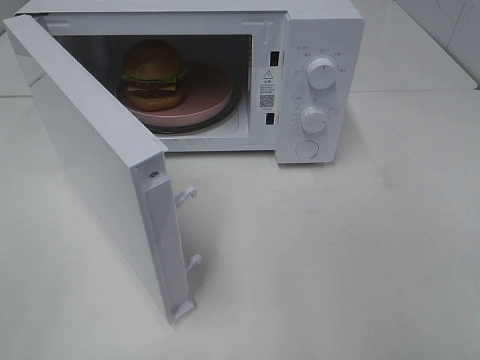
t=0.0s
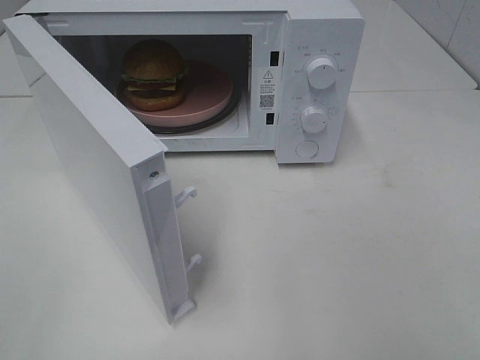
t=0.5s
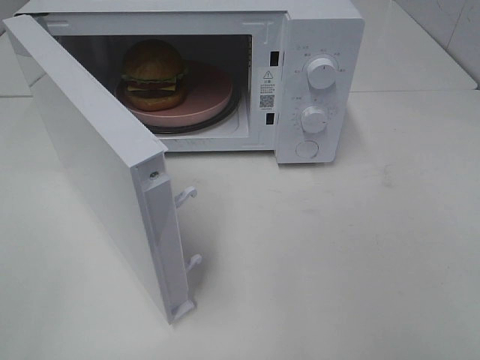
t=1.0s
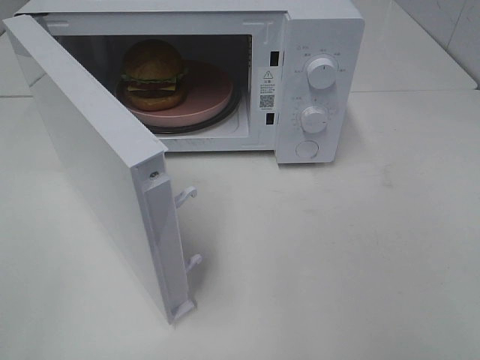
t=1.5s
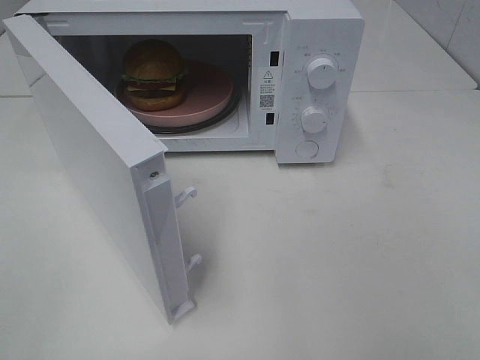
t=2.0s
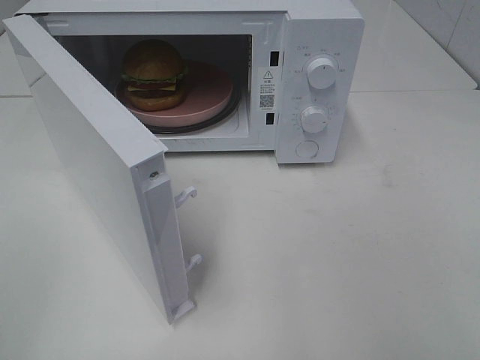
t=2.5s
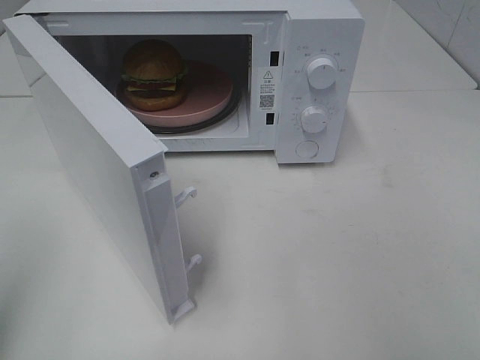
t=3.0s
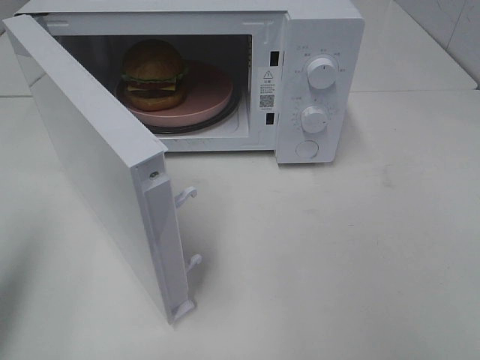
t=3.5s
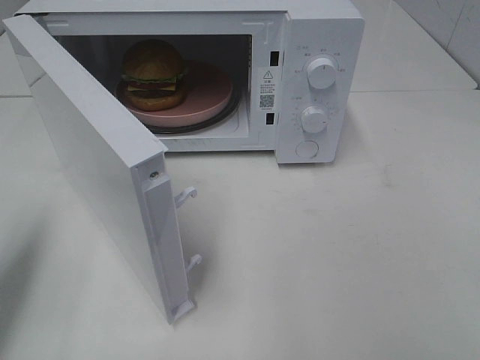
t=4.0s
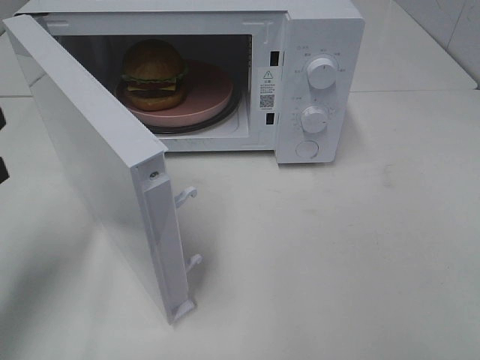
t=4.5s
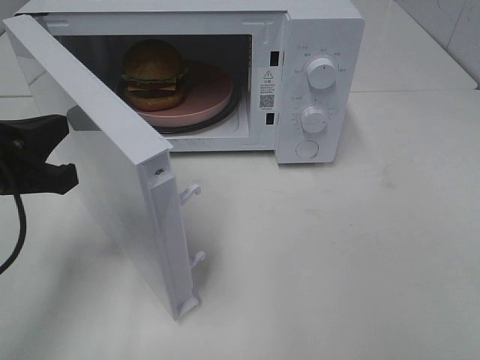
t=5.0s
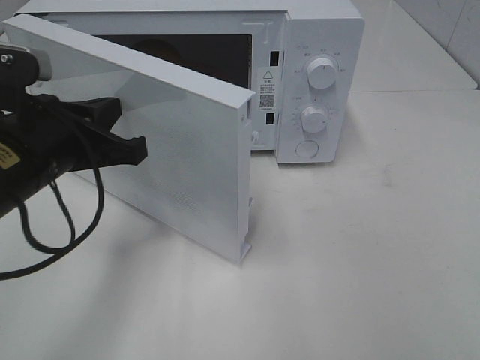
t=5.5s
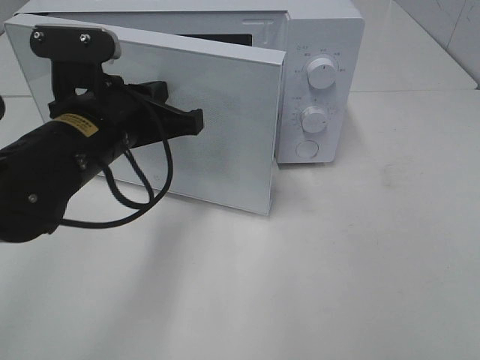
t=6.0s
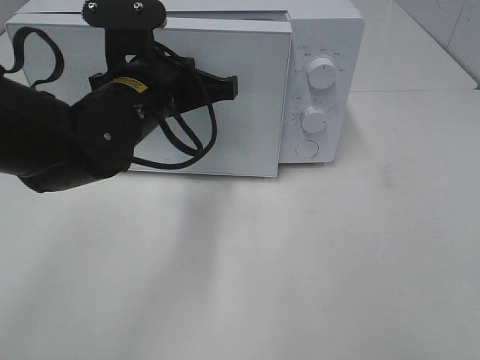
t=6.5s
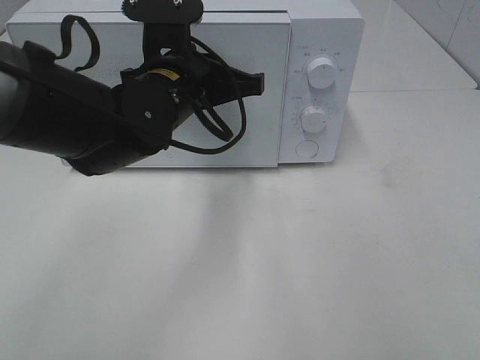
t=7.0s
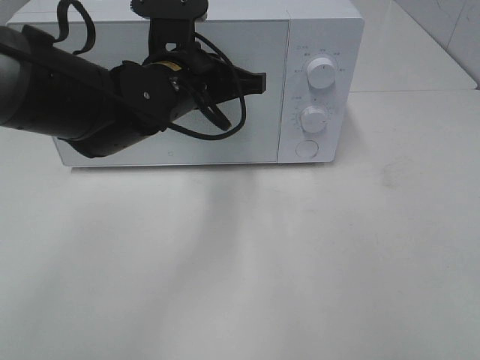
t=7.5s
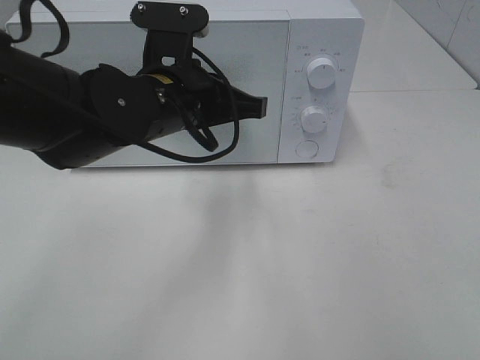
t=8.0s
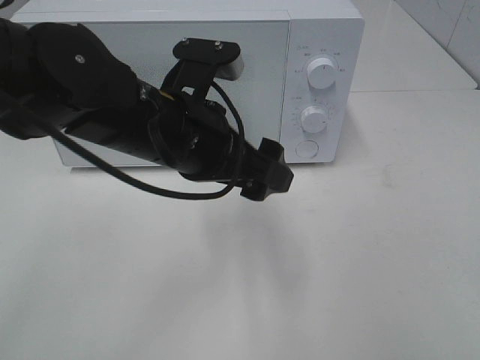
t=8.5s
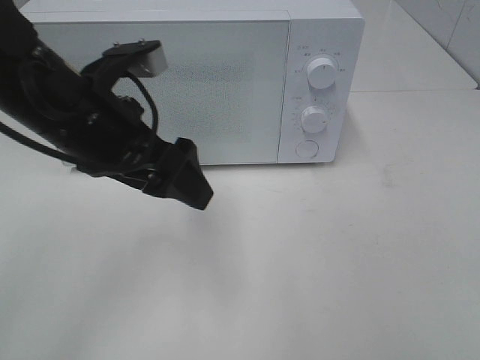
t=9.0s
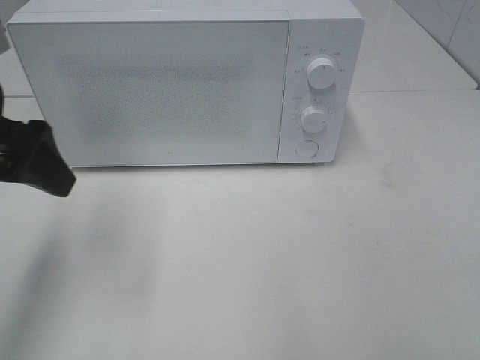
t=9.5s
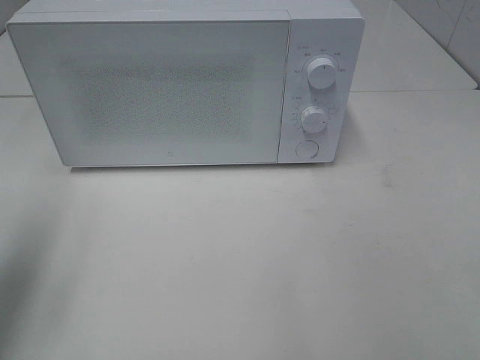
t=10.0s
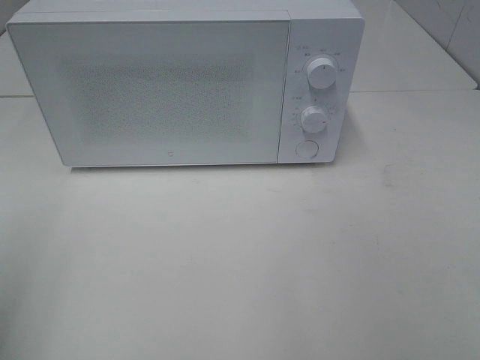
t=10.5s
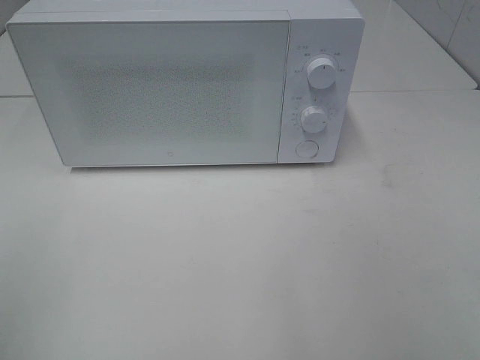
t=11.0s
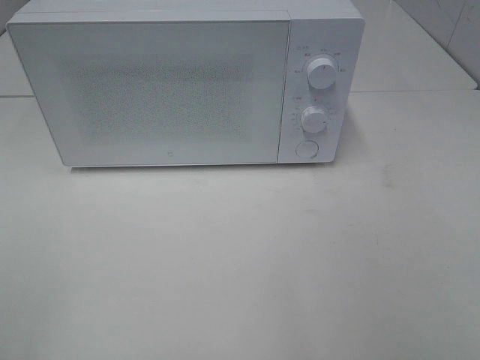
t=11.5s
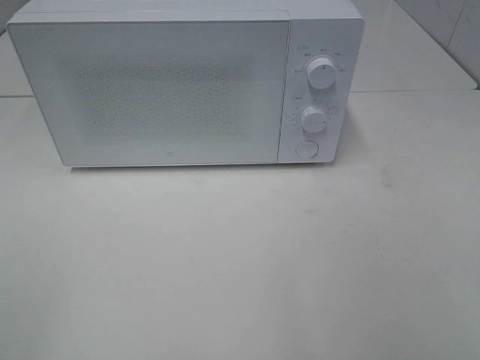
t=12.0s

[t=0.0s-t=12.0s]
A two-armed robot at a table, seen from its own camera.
Task of the whole recording: Heat the burger.
Step, t=0.0s to t=8.0s: Left hand: close the microwave door.
t=0.0s to t=2.0s: Both grippers stay about where they are.
t=2.0s to t=4.0s: The left gripper travels forward by roughly 15 cm, and closes.
t=4.0s to t=6.0s: The left gripper goes approximately 20 cm to the right and forward.
t=6.0s to t=8.0s: The left gripper goes approximately 5 cm to the right.
t=8.0s to t=10.0s: The left gripper shifts approximately 30 cm to the left and backward, and opens.
t=10.0s to t=12.0s: The left gripper is displaced backward by roughly 20 cm.

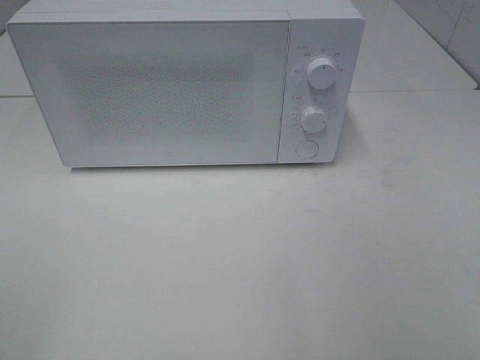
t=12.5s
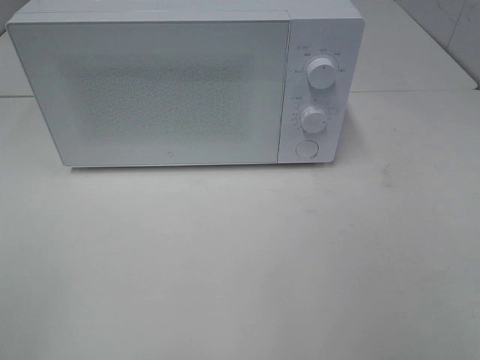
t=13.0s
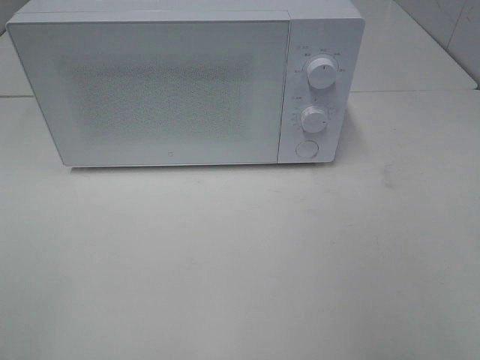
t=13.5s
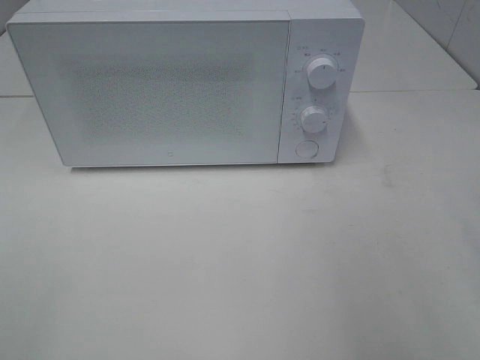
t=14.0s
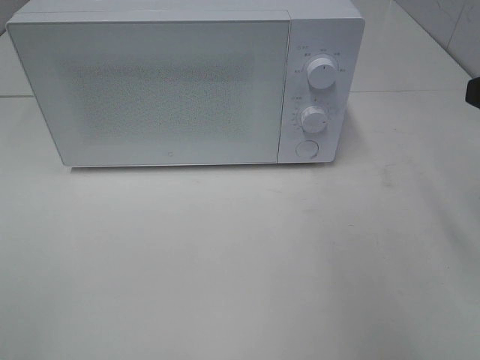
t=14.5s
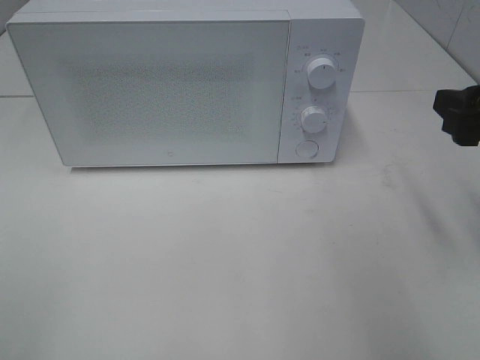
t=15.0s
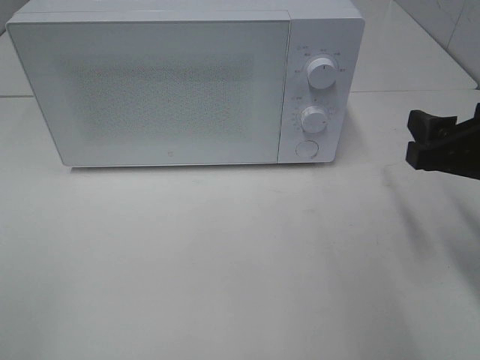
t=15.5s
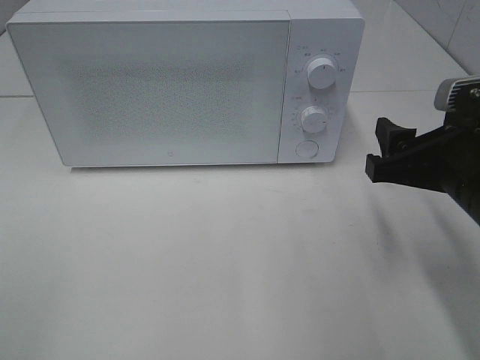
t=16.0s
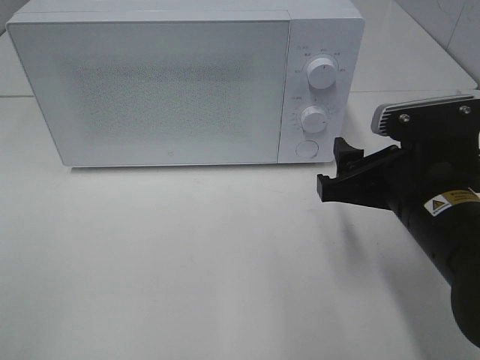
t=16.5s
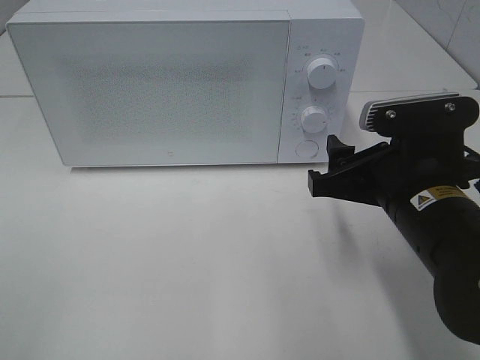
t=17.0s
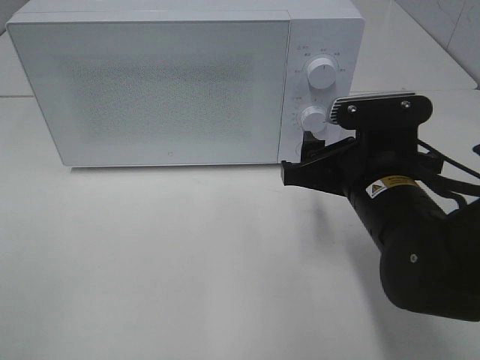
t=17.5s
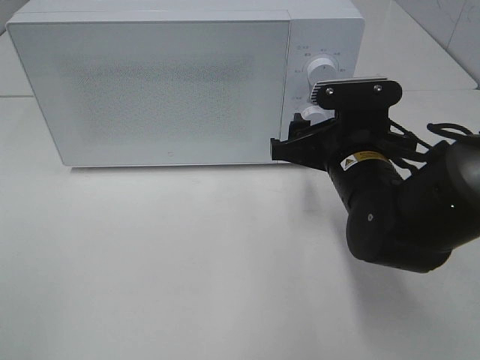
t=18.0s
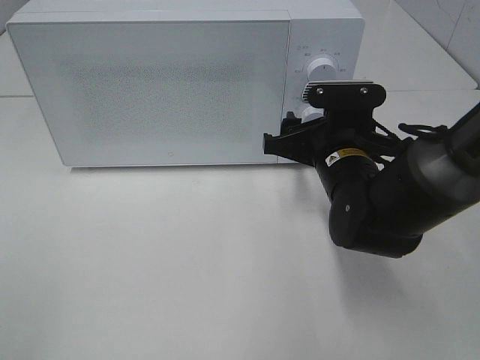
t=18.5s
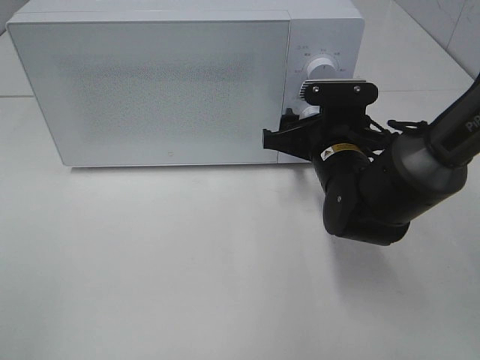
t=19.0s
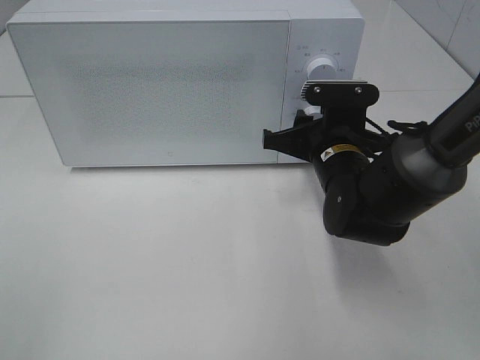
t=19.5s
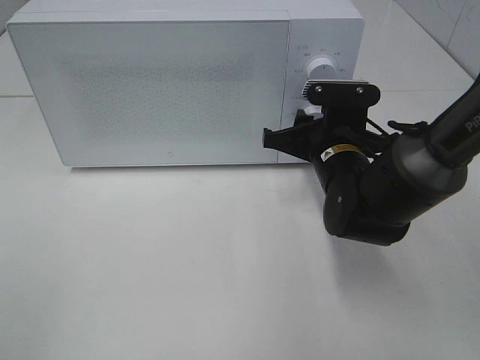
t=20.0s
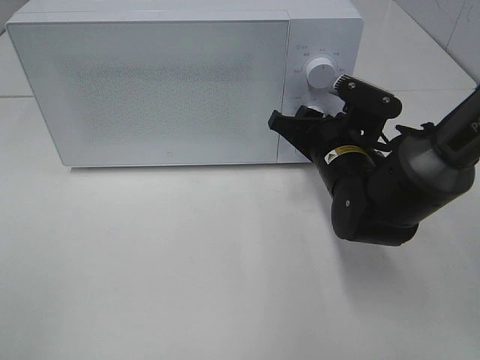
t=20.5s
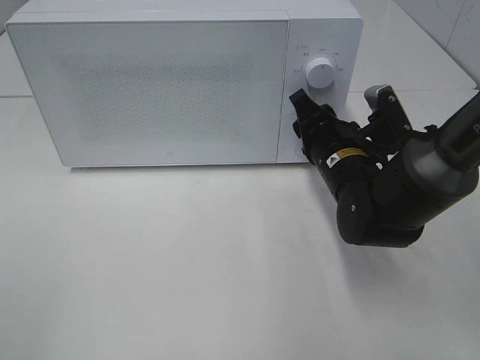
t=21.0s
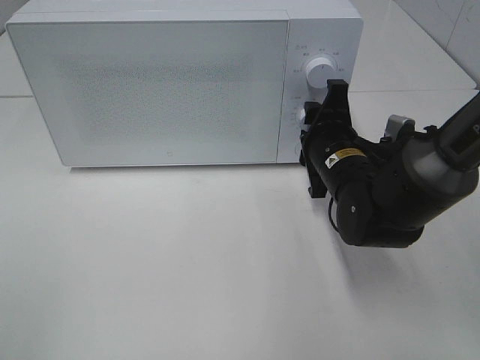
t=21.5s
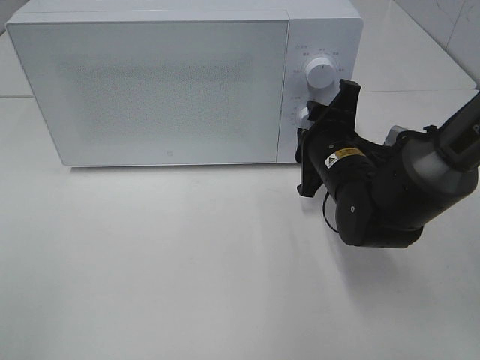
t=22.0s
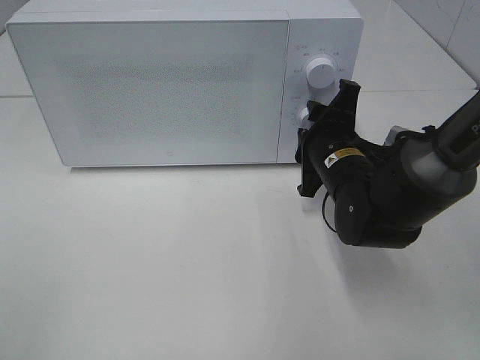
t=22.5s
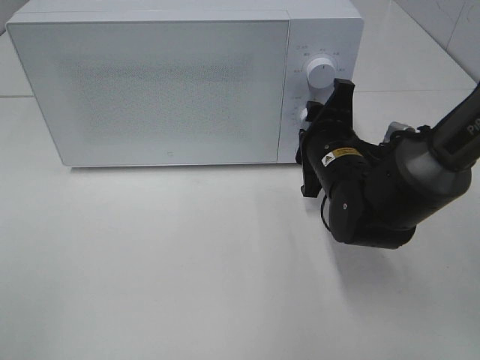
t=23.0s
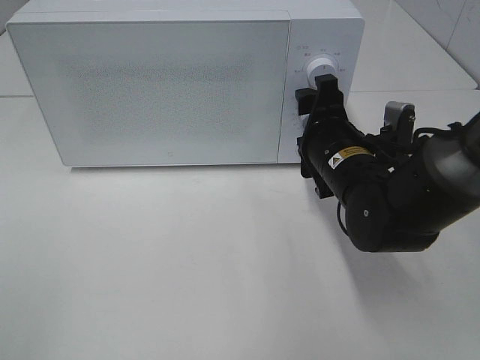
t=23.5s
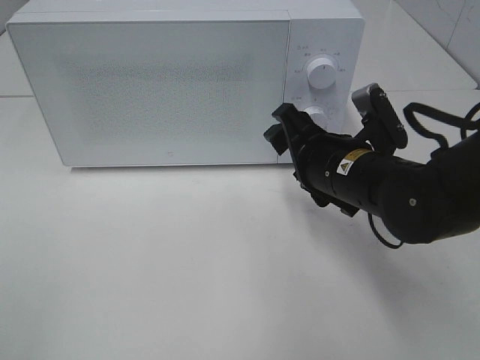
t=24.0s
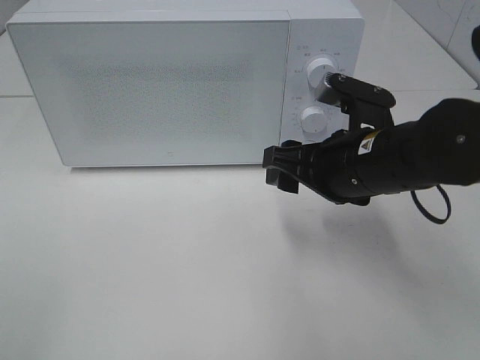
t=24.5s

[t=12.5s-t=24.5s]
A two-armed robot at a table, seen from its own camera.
Task of the whole recording: Heat the burger.
Step, t=12.5s to t=23.0s: Right hand: twist timer button.
t=14.5s to t=16.5s: The right gripper moves downward and to the left, approximately 15 cm.
t=16.5s to t=18.5s: The right gripper heads forward, covering approximately 10 cm.
t=22.5s to t=24.5s: The right gripper is displaced backward and upward by some 10 cm.

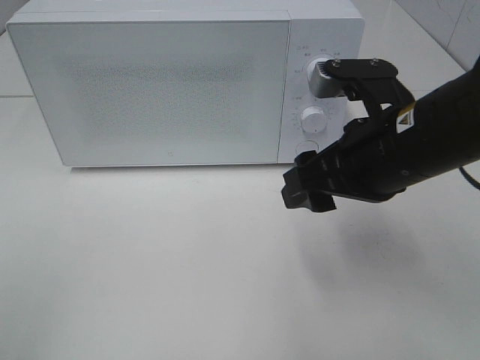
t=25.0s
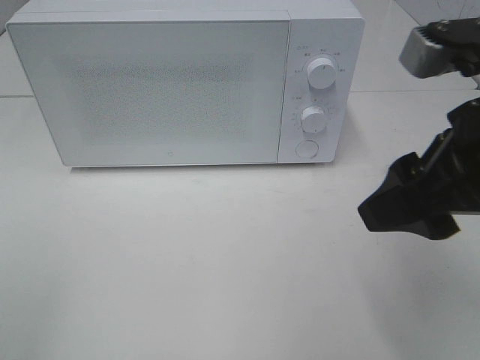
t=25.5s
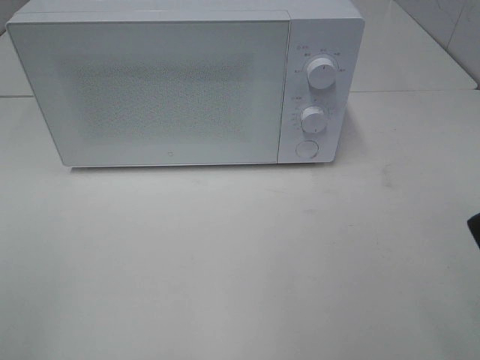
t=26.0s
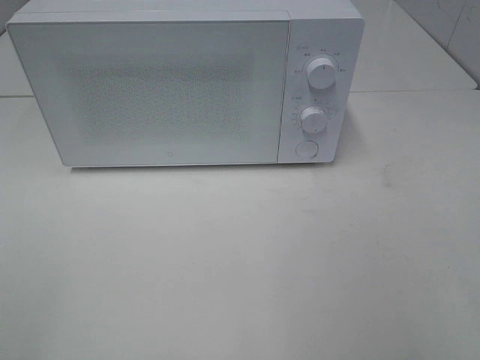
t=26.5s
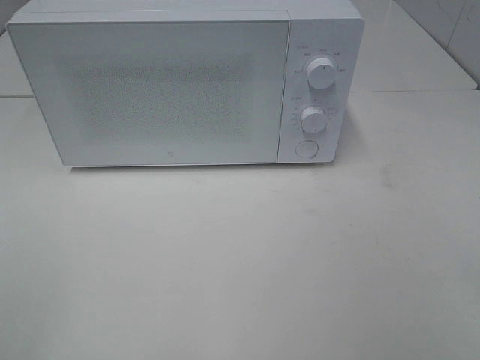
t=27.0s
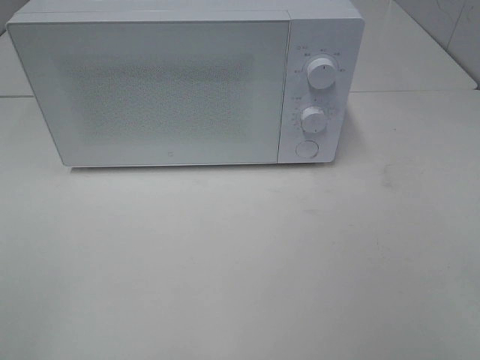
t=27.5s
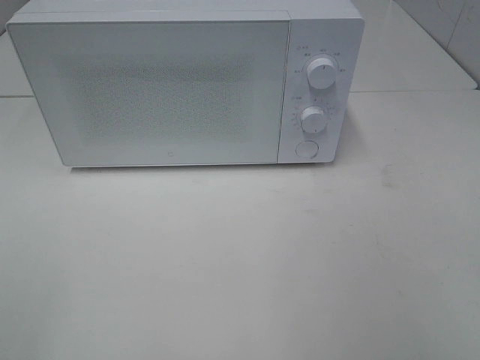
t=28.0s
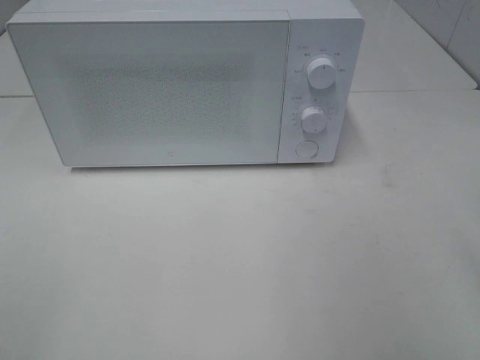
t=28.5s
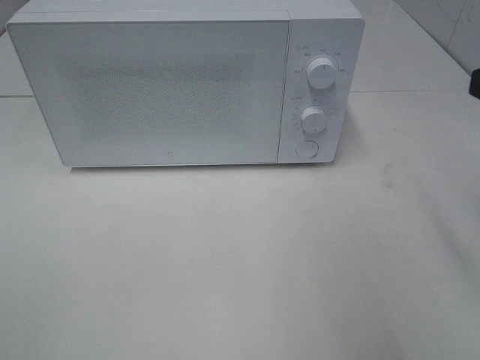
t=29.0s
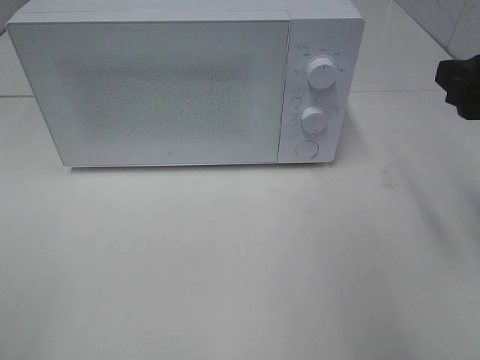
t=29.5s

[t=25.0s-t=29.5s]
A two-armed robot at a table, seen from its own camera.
Task of the whole recording: Heat the burger.
t=25.0s to t=27.0s: The right gripper is displaced backward and to the right by approximately 25 cm.
t=27.0s to t=29.5s: The right gripper is displaced forward by about 20 cm.
